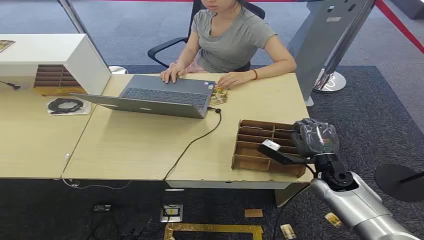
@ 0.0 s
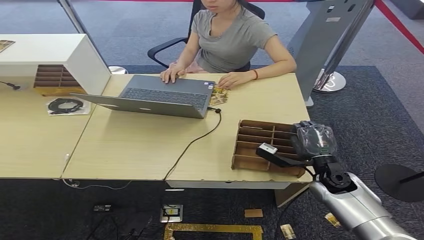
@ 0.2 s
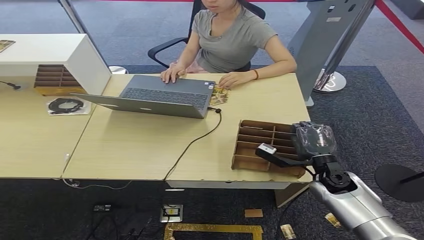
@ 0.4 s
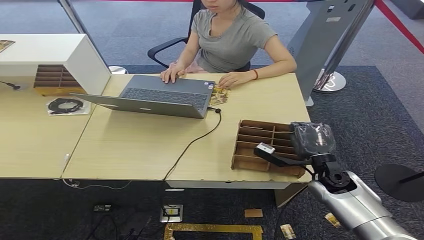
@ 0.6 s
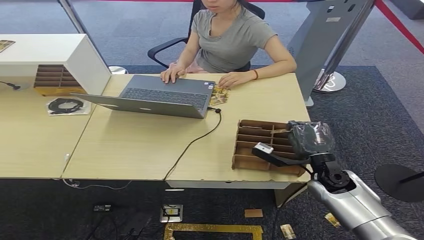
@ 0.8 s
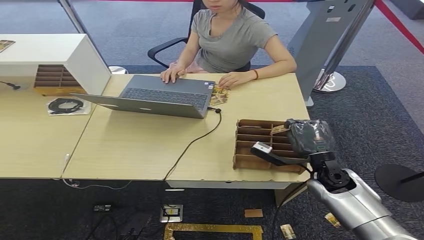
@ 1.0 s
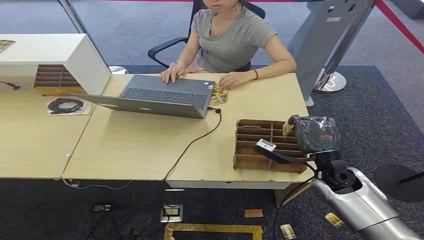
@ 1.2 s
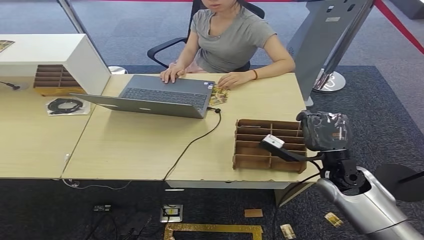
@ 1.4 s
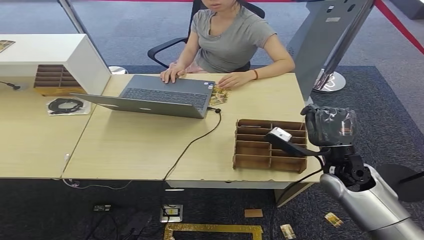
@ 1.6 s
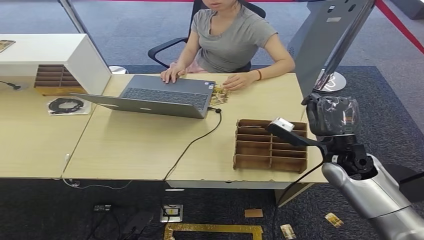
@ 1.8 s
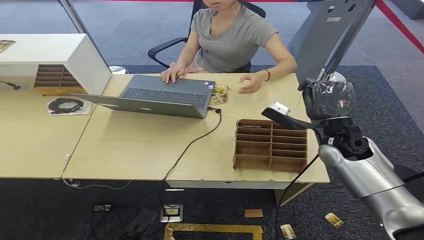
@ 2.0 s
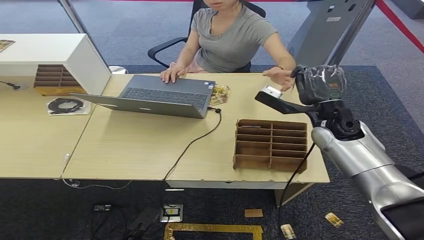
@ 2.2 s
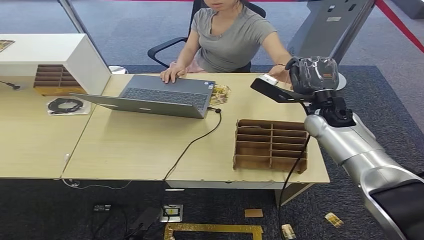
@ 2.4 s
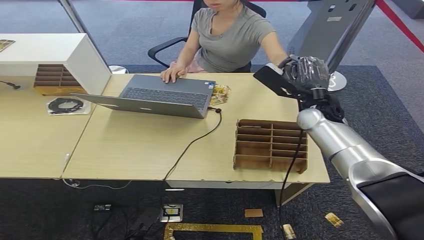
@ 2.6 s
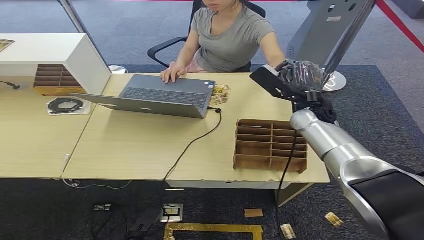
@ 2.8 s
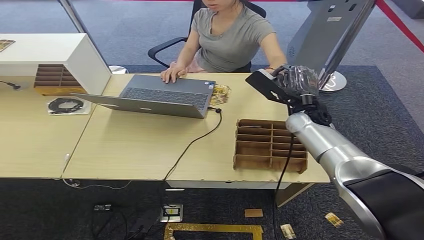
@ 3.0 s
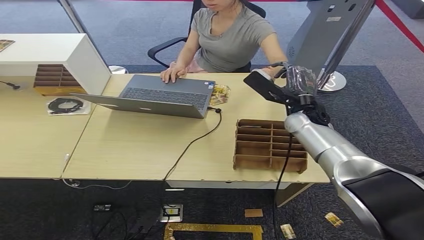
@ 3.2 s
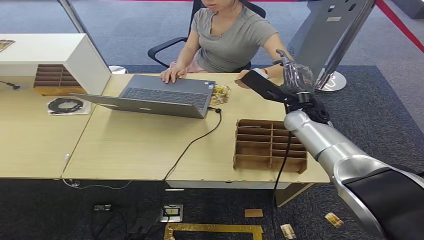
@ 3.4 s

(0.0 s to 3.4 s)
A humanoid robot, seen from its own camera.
Step, 0.0 s - 1.0 s: Pick up the room card from the card holder.
Step, 1.2 s - 3.4 s: Hand the room card to the target.
1.6 s - 3.4 s: The right hand goes roughly 15 cm forward, to the left and upward.
